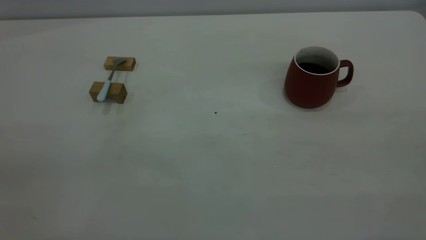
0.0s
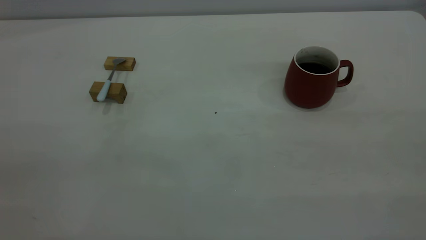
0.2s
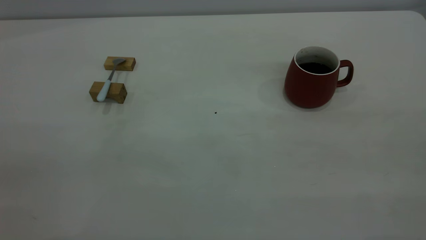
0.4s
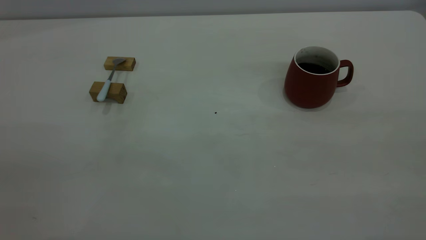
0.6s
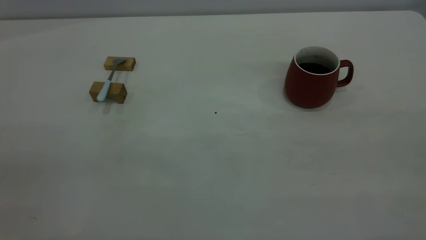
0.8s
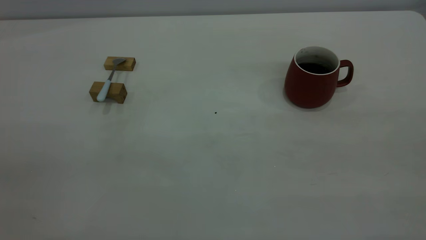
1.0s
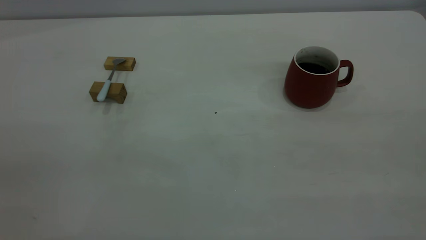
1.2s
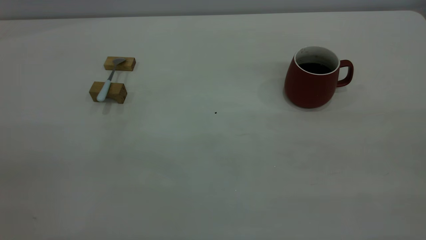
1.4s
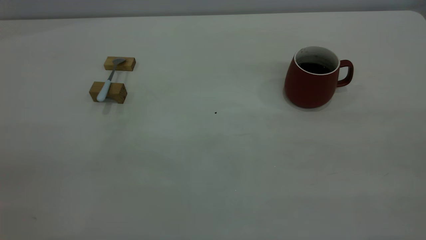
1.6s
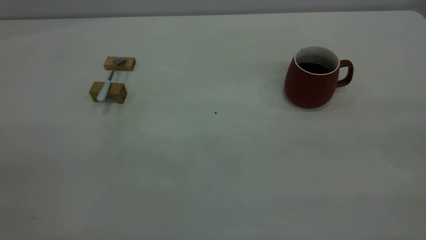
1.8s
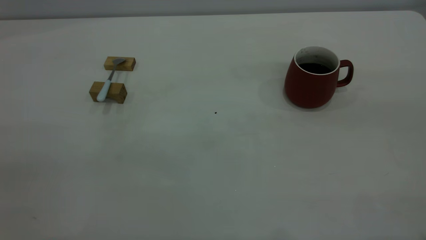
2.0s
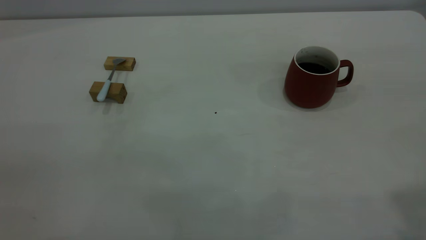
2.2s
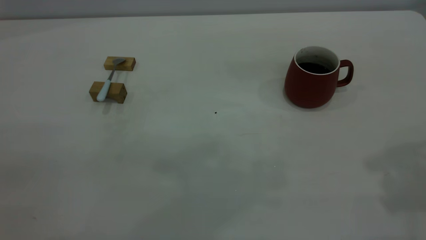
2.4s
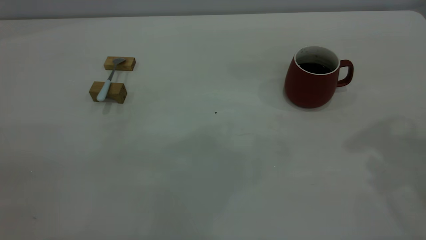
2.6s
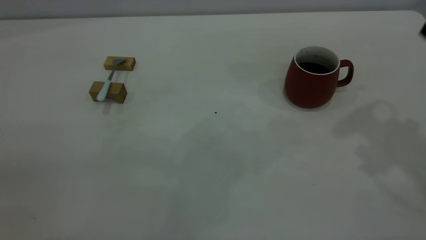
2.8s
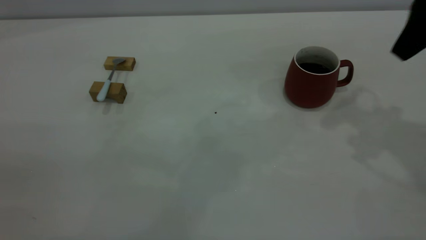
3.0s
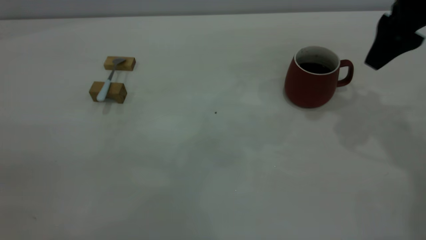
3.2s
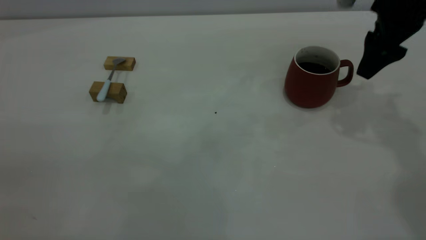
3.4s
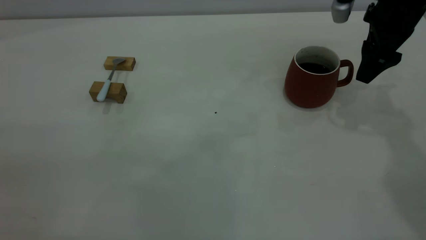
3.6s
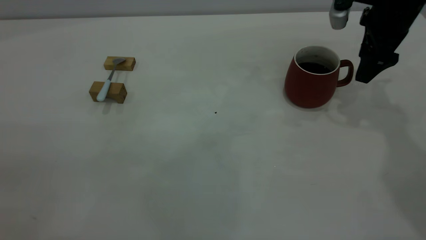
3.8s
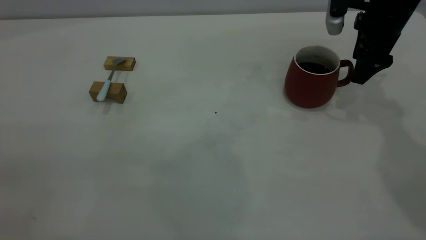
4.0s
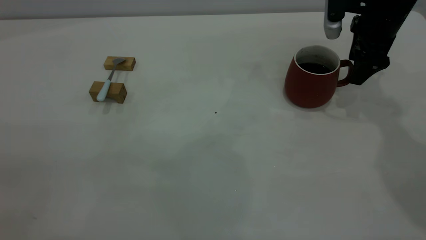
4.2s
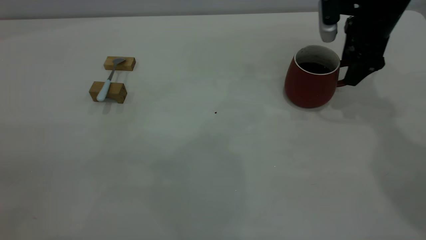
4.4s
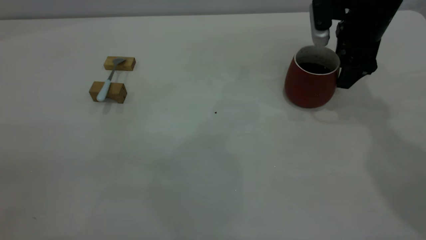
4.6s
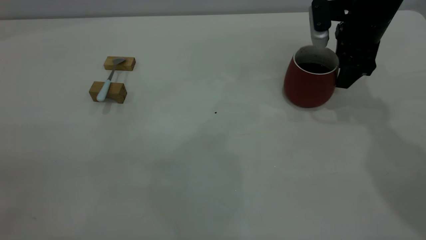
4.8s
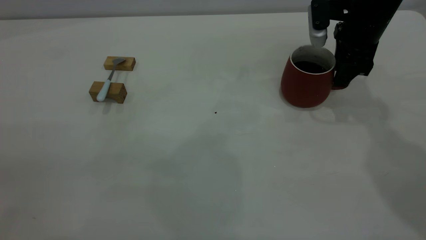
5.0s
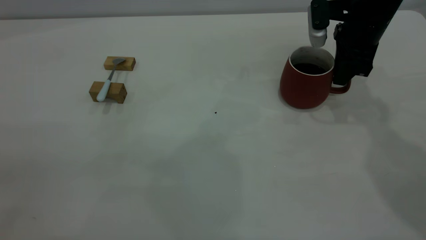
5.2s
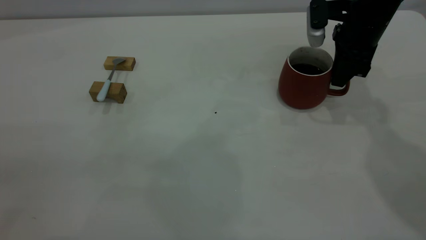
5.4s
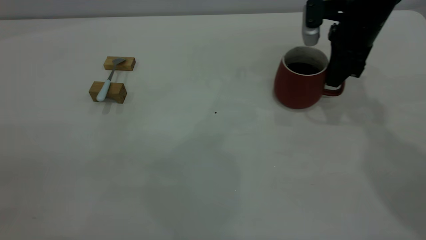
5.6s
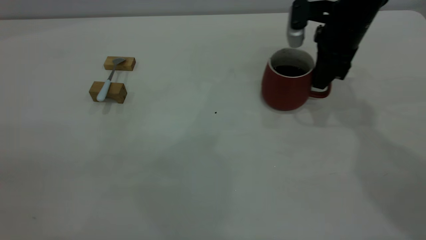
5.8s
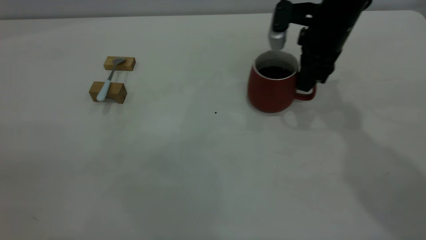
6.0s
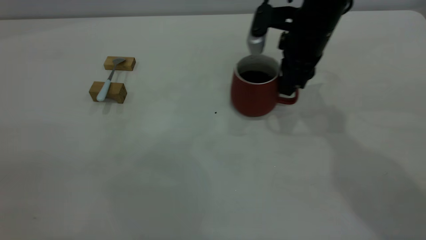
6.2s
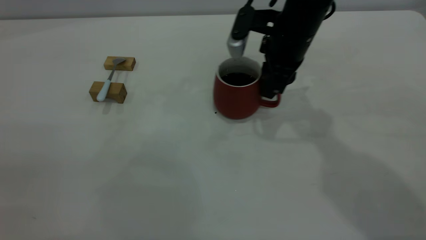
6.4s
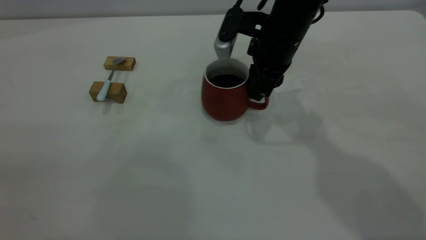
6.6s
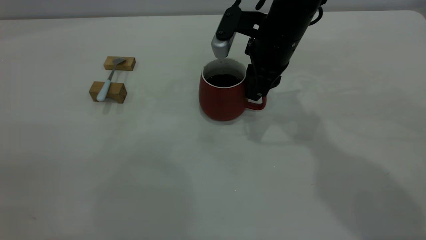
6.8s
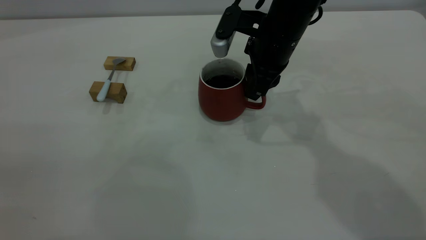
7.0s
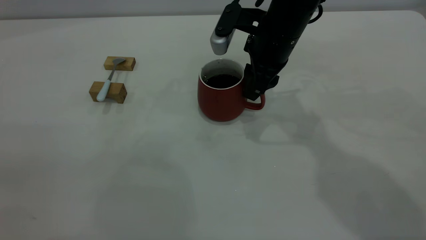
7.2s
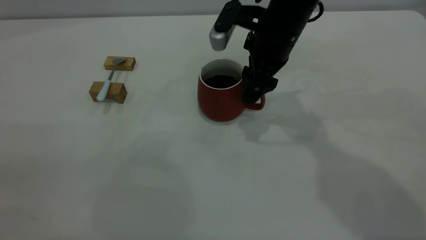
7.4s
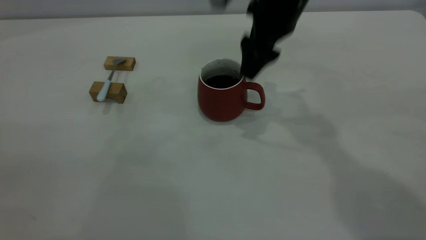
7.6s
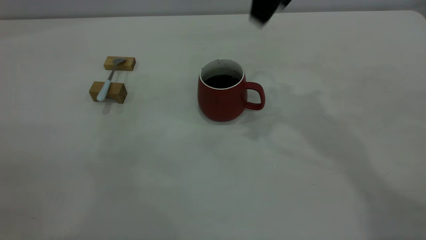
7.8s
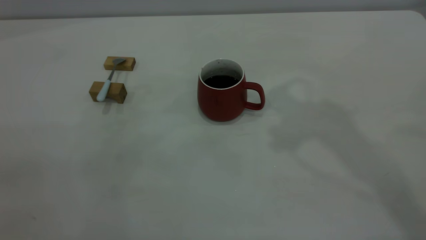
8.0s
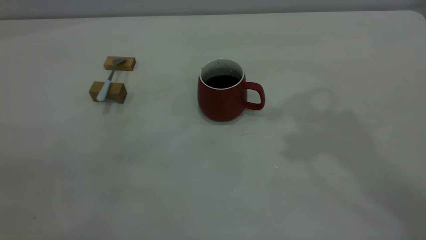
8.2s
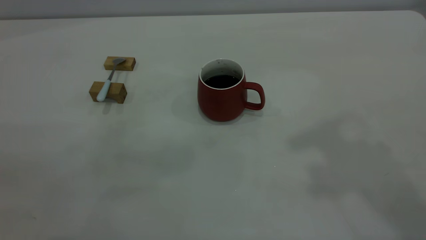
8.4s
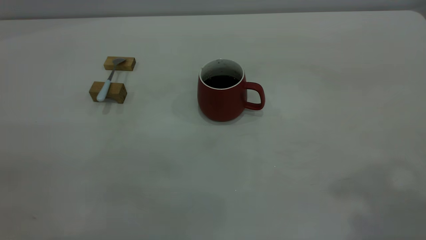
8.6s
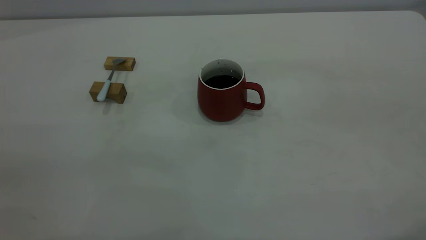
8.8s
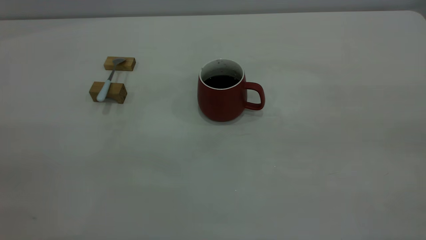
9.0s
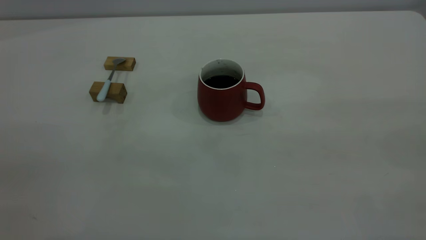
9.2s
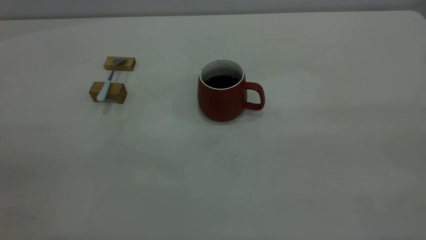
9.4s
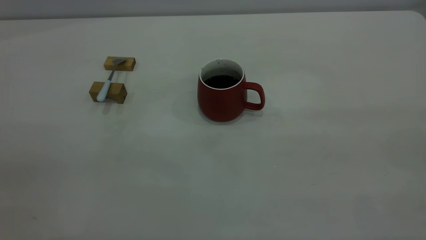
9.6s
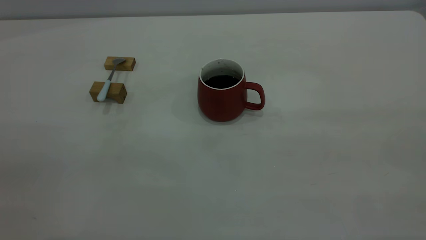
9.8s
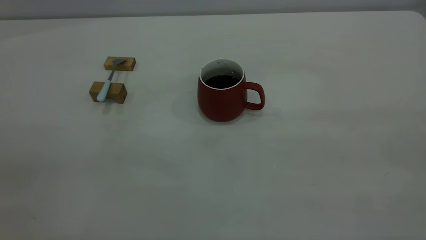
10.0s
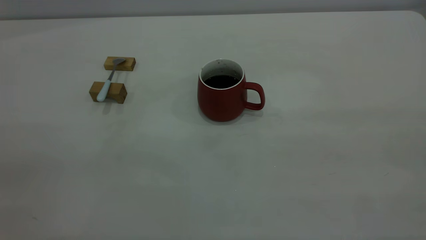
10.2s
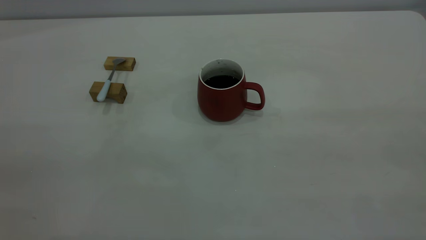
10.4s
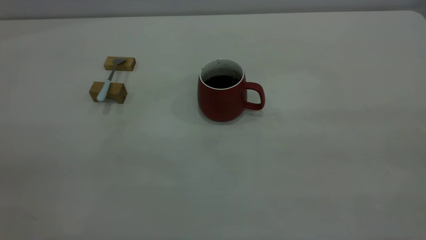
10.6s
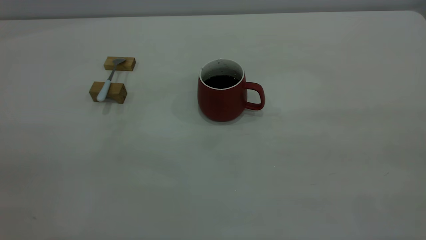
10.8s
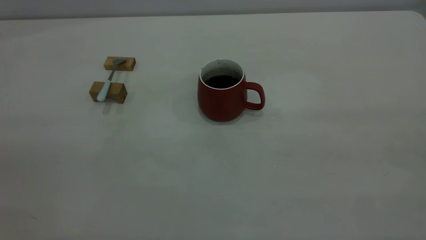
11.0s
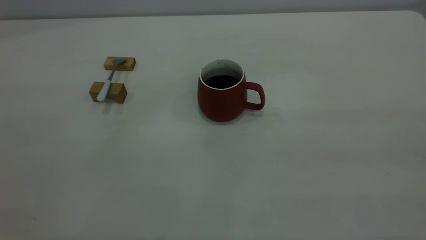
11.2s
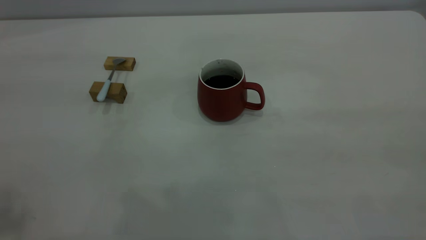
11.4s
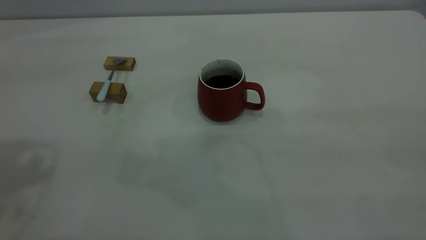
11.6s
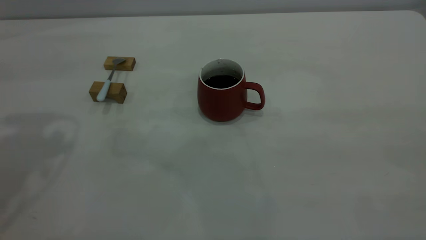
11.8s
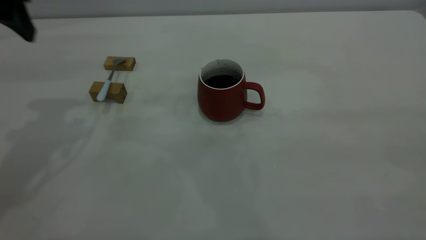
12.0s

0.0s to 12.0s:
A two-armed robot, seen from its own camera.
Step, 0.0s to 7.6s: Move the cup with coffee to the center of view.
0.0s to 1.6s: The two grippers keep their place.
1.6s to 3.0s: The right gripper goes about 35 cm forward.
3.0s to 4.4s: The right gripper goes some 15 cm downward and forward.
4.4s to 6.0s: The right gripper goes some 10 cm to the left, and closes up.
6.0s to 7.6s: The right gripper travels upward and to the left by approximately 10 cm, and opens its fingers.
7.6s to 9.0s: The right gripper moves backward, to the right and upward, roughly 40 cm.
10.4s to 12.0s: The left gripper goes roughly 35 cm forward, and opens its fingers.

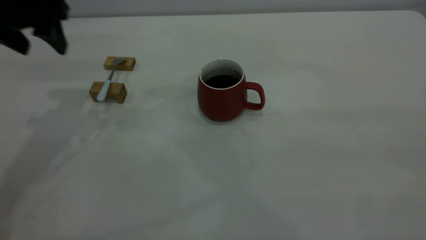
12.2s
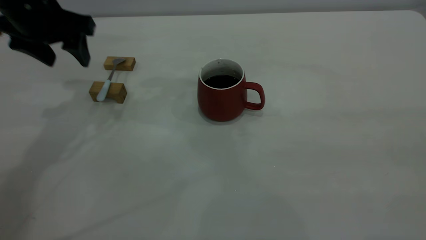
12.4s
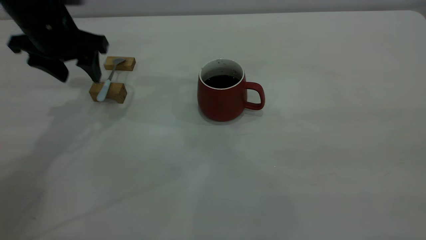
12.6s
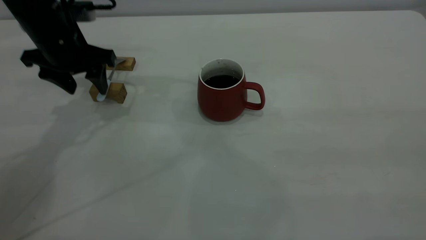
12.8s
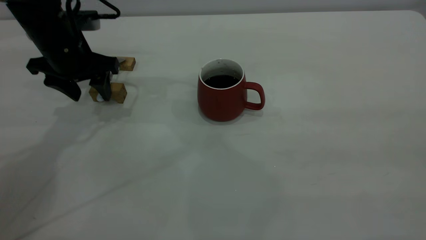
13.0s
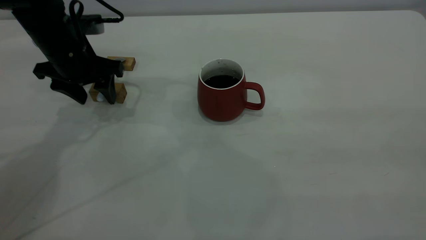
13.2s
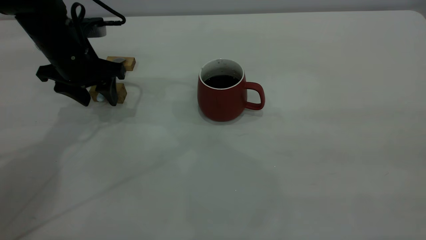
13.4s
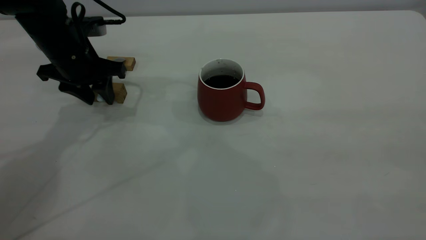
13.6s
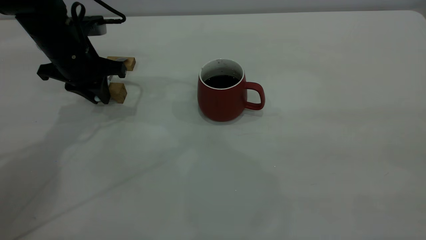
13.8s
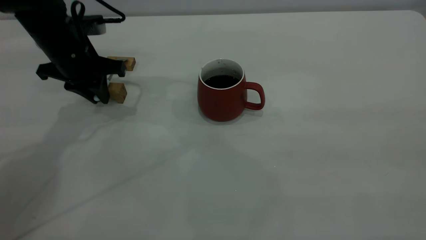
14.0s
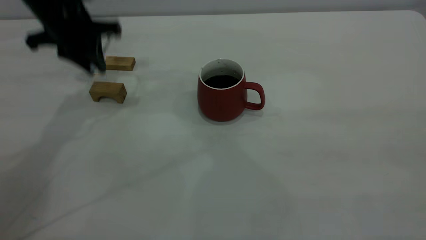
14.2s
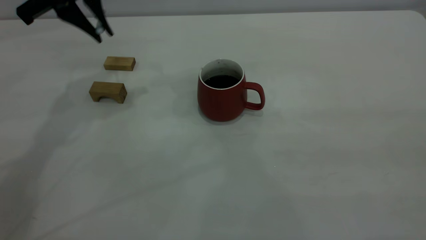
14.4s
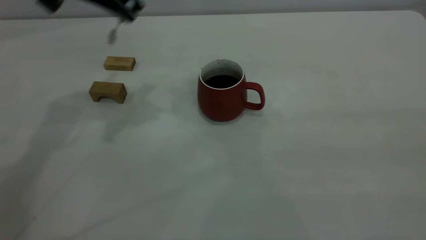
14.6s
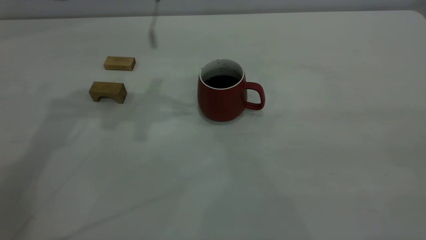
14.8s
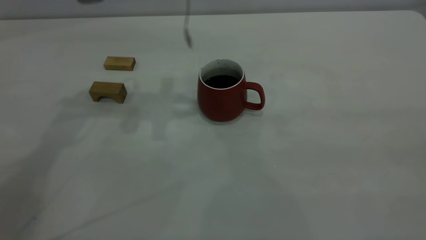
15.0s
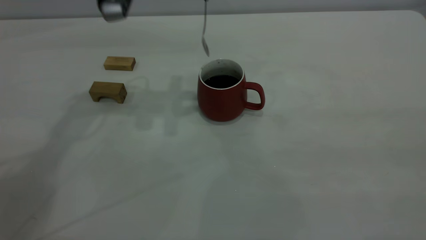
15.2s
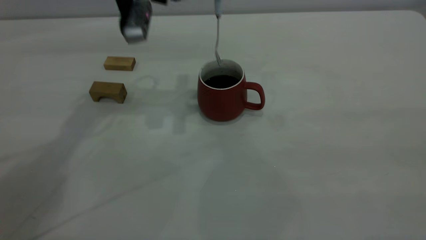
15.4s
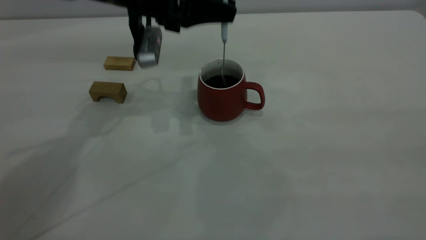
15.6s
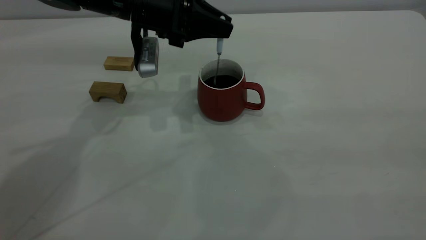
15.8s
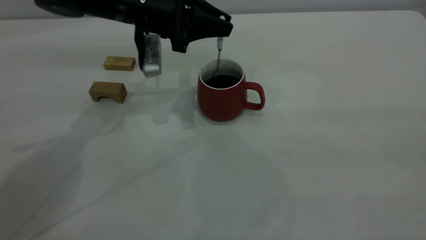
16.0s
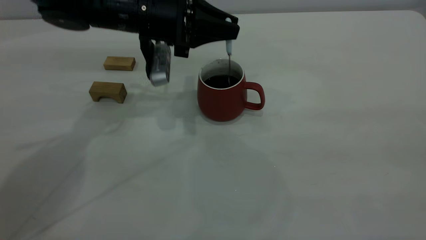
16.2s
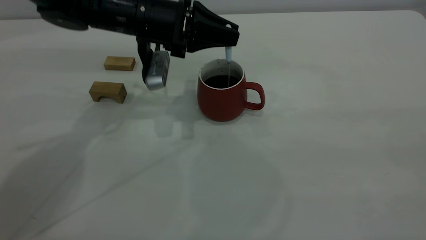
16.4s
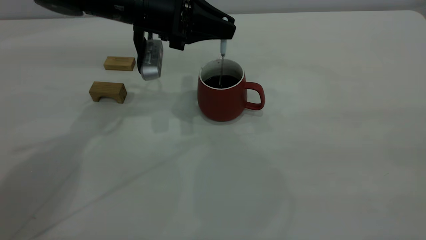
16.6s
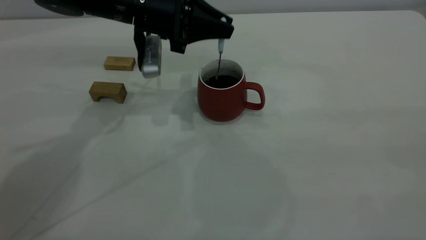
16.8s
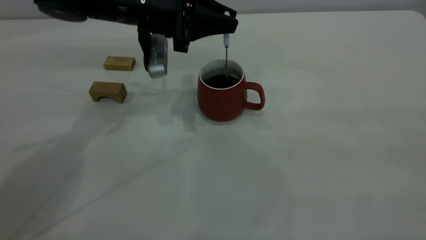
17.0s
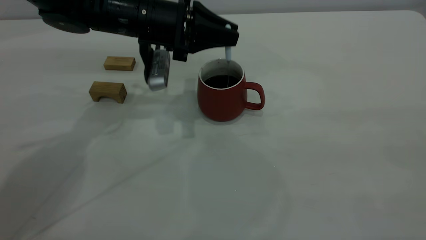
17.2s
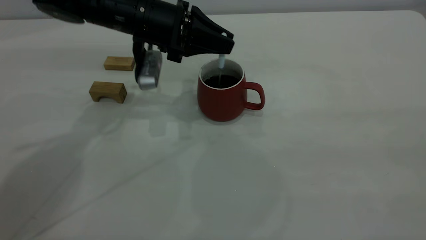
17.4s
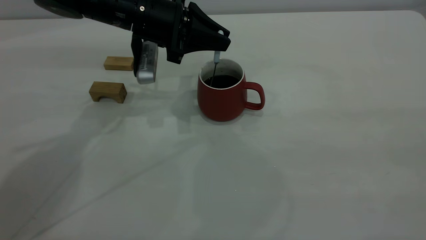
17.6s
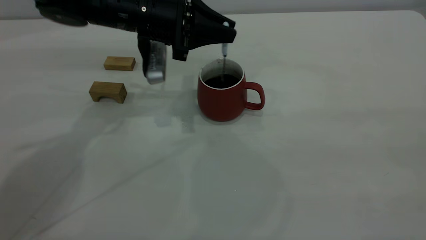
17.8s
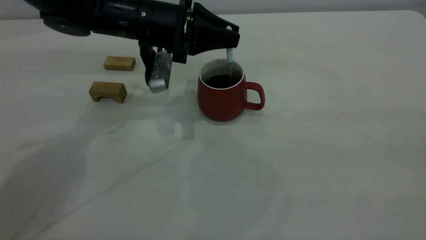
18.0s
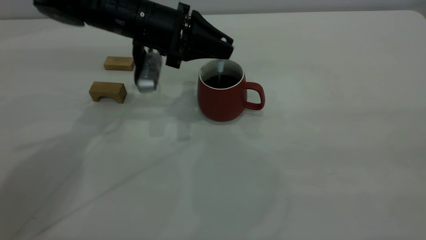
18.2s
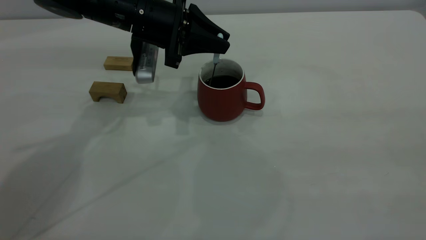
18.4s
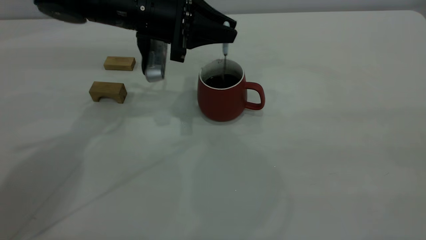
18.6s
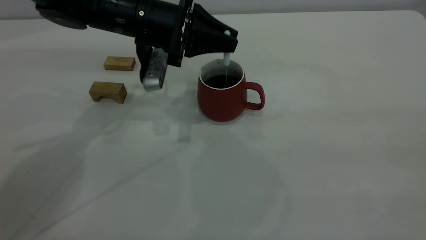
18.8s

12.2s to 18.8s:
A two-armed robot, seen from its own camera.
Step, 12.2s to 14.2s: Pick up the spoon.
12.2s to 13.8s: The left gripper travels downward by about 10 cm, and closes its fingers.
13.8s to 15.4s: The left gripper travels to the right and upward by roughly 15 cm.
15.4s to 17.2s: The left gripper is displaced downward by about 5 cm.
17.2s to 18.8s: There are only small adjustments of the grippers.
